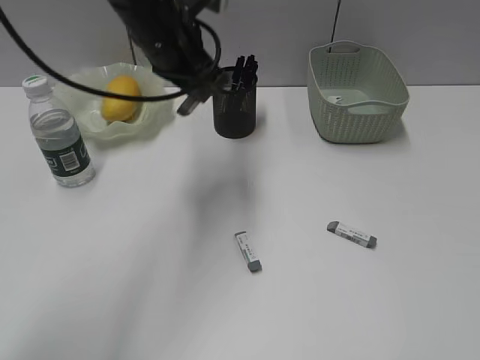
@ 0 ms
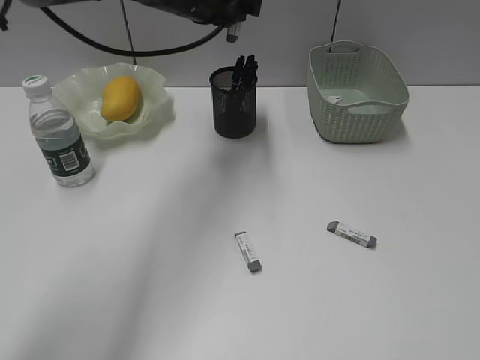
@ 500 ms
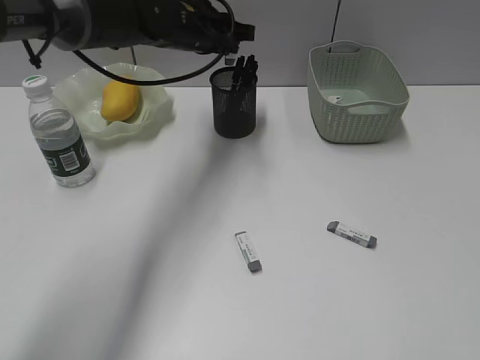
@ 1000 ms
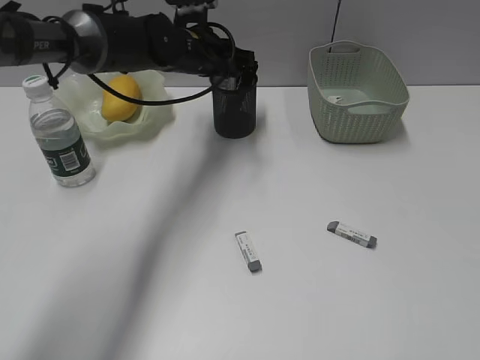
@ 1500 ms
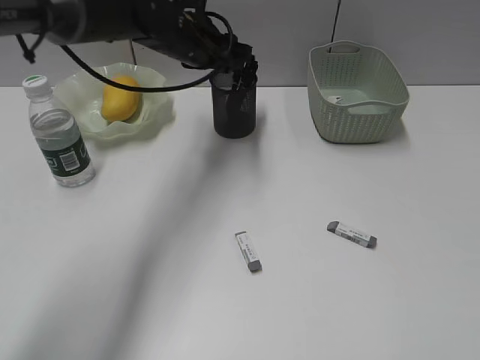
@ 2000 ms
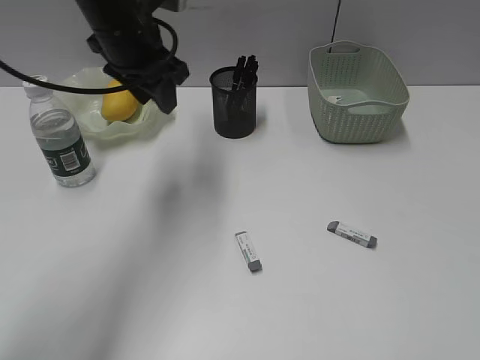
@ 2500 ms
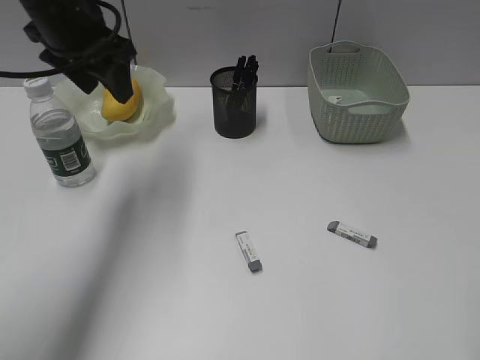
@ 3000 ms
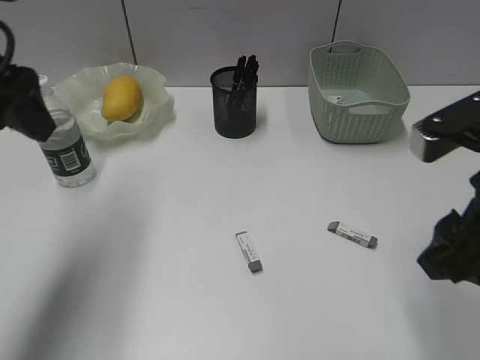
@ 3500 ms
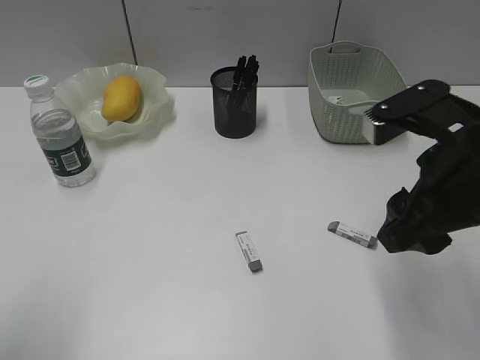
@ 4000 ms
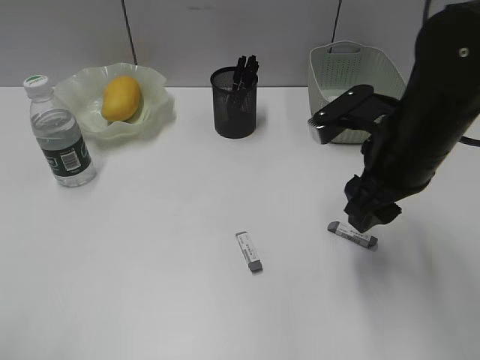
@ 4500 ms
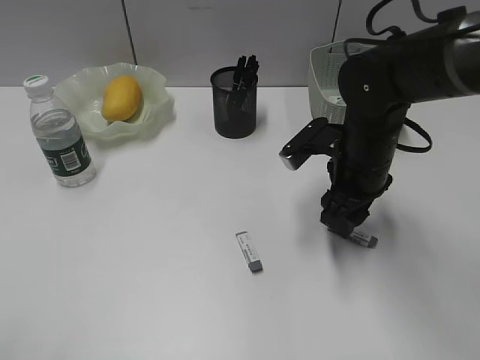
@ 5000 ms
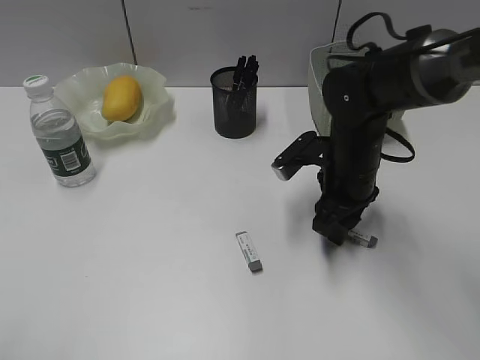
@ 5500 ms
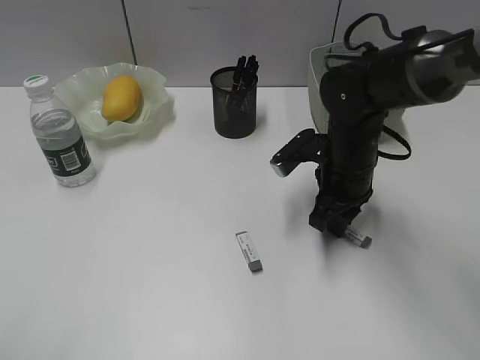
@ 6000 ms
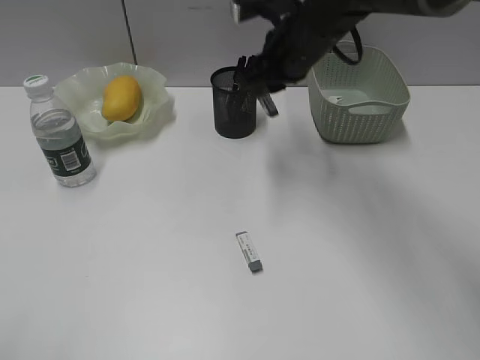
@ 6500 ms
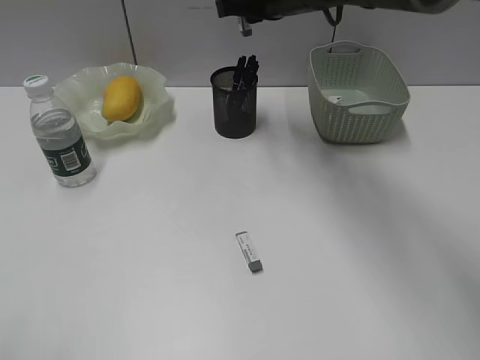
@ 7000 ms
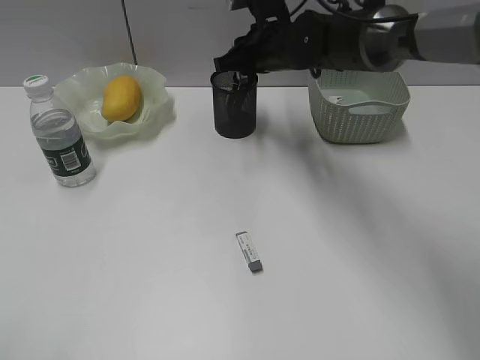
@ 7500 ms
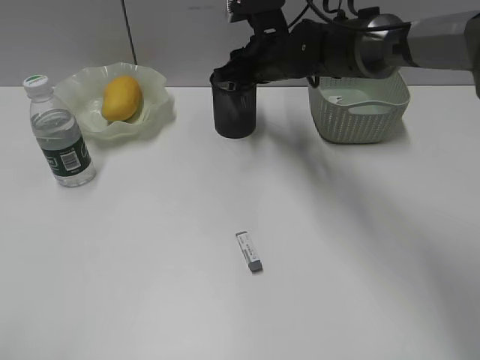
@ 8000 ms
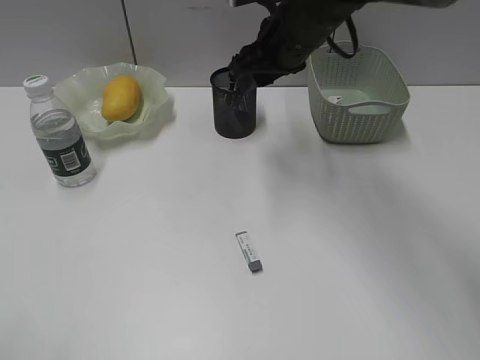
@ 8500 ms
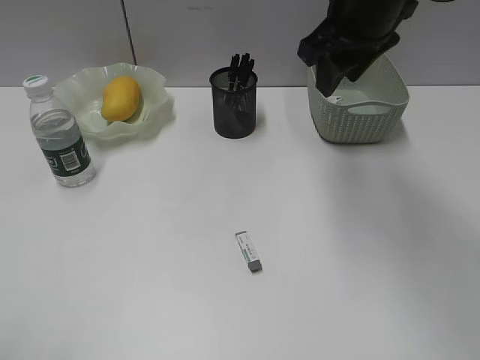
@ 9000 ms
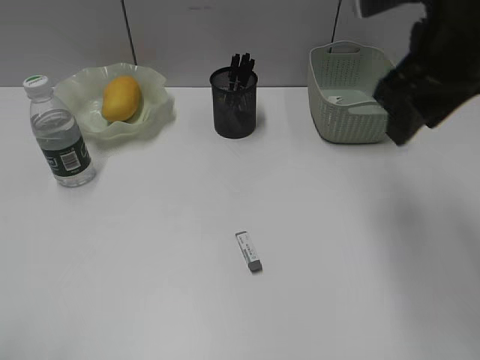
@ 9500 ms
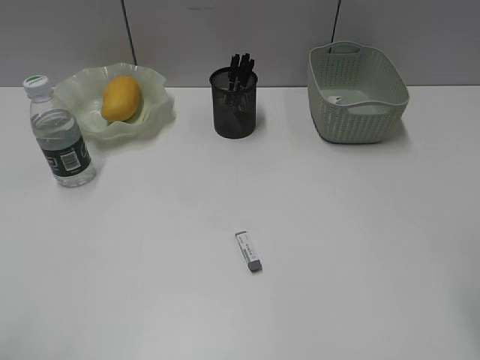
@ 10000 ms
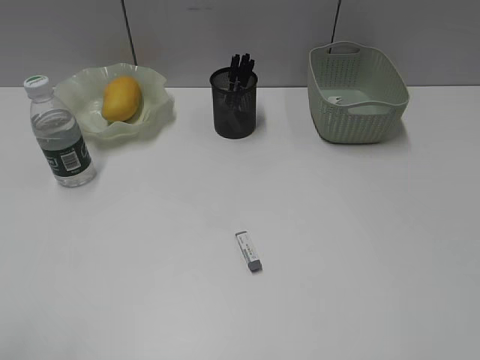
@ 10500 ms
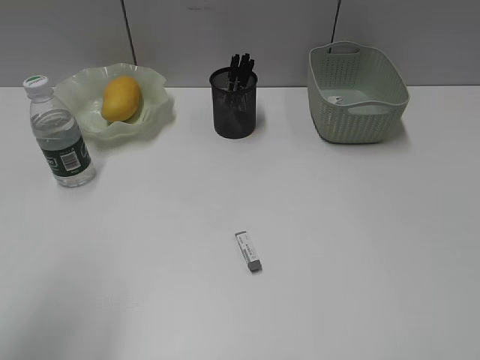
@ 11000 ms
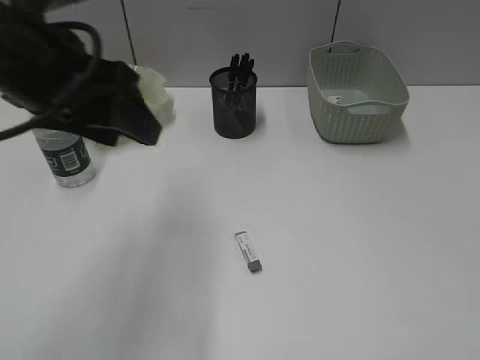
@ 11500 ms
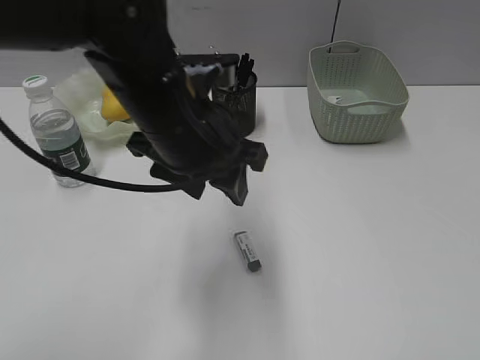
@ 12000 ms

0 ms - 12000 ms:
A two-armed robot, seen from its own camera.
Step, 0 ms - 2000 ms: Place the eraser in pen holder with left gripper.
Step, 2500 ms - 5500 ms: Grasp the eraser with right gripper.
Step, 6000 ms - 8000 ms: Place the eraser in pen holder with right gripper.
0 ms - 2000 ms: The left gripper moves forward, about 5 cm, and opens up.
2000 ms - 4000 ms: The left gripper goes roughly 40 cm backward and to the left. Meanwhile the right gripper travels forward and to the left by approximately 20 cm.
4000 ms - 6000 ms: The right gripper shifts roughly 20 cm forward, downward and to the left, and closes up. The left gripper goes approximately 10 cm backward.
6000 ms - 8000 ms: The right gripper shifts approximately 15 cm forward, to the left and upward.
8000 ms - 10000 ms: The right gripper moves backward, to the right and upward, some 40 cm, and opens.
10000 ms - 12000 ms: The right gripper goes approximately 15 cm backward and to the right; the left gripper heads forward and to the right, covering about 35 cm.

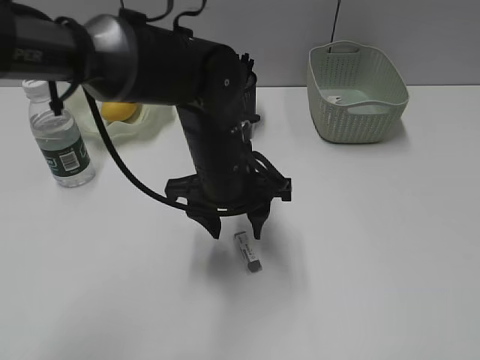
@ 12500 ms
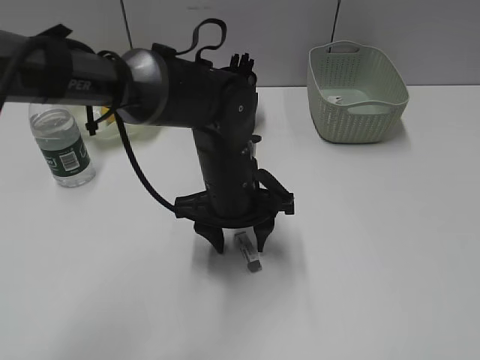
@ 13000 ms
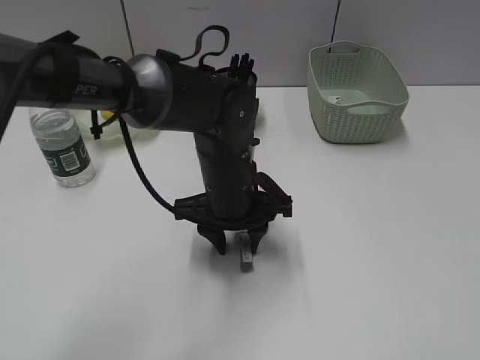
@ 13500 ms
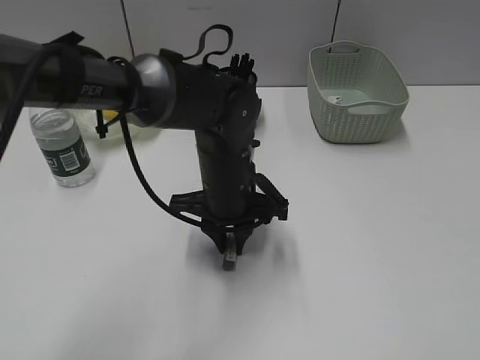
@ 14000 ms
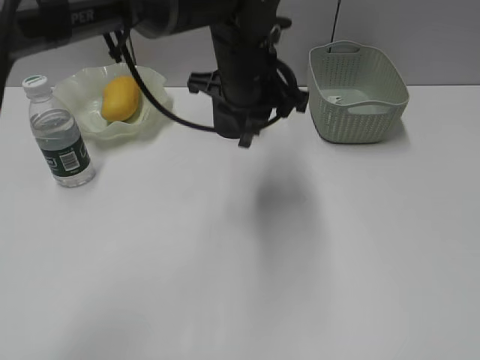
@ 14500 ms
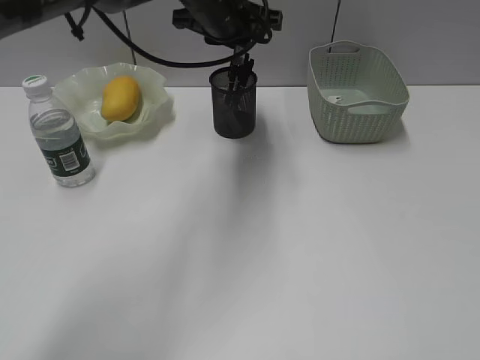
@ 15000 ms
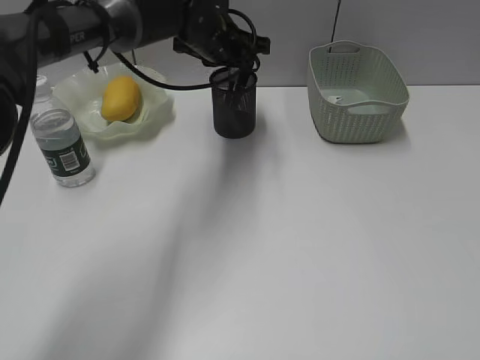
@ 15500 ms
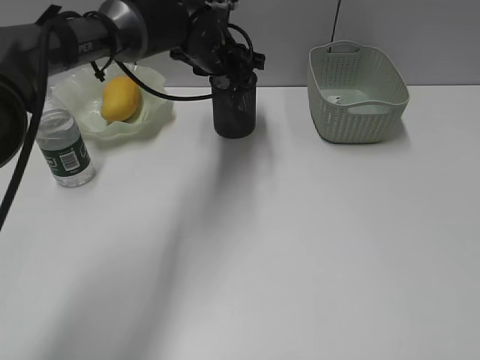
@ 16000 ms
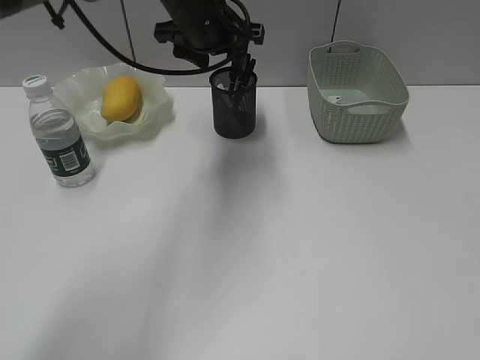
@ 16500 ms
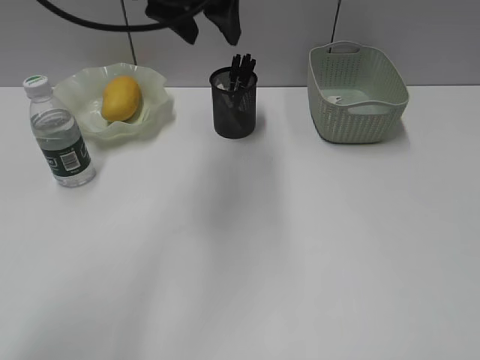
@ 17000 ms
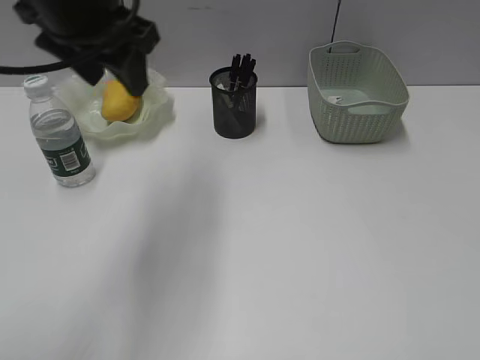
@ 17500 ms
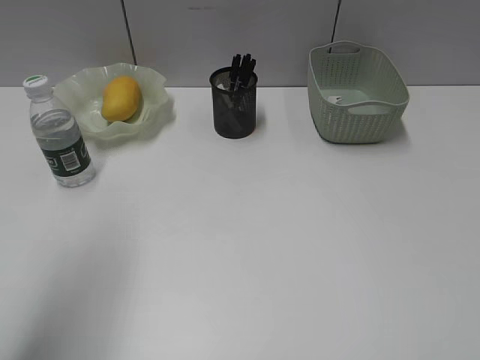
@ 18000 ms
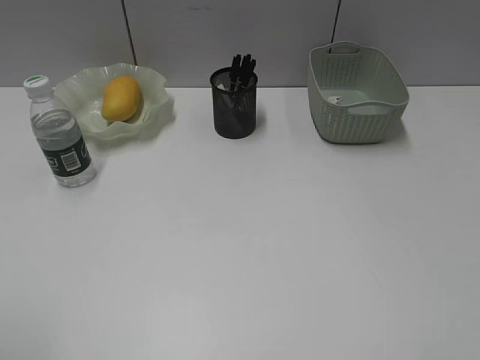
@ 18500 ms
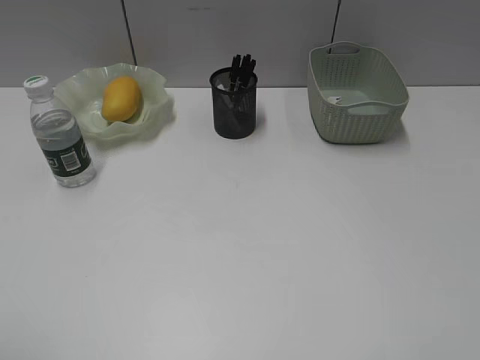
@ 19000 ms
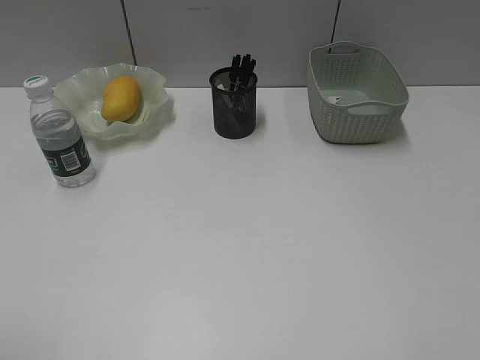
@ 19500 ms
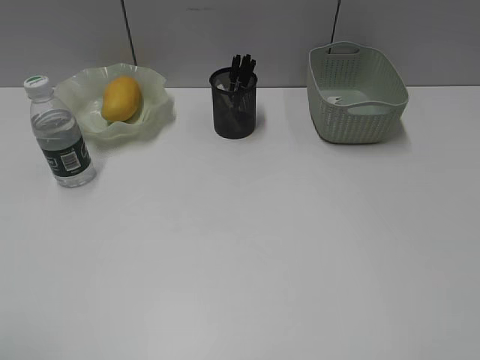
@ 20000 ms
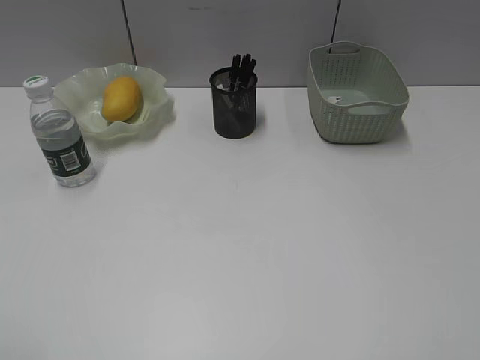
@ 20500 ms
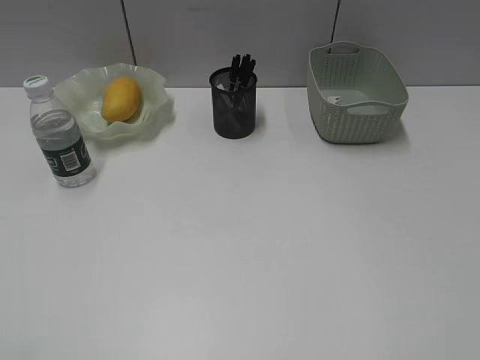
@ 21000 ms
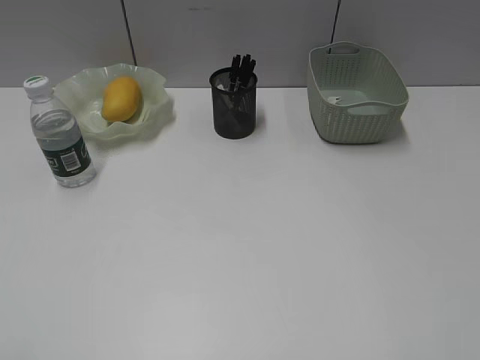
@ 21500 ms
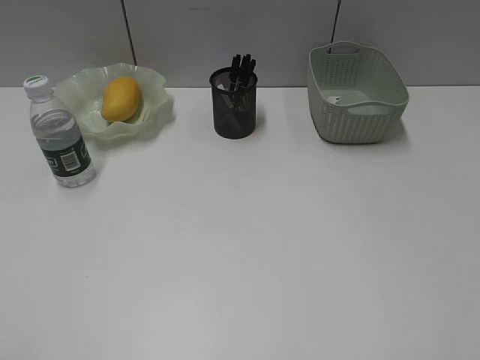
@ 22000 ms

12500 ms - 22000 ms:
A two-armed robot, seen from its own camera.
Step, 14000 ms - 16000 ms: Place the eraser in pen holder with left gripper.
12500 ms - 14500 ms: The left gripper is displaced forward and upward by roughly 10 cm, and closes its fingers.
14500 ms - 16500 ms: The left gripper is displaced forward and to the left by approximately 10 cm, and opens.
16500 ms - 18000 ms: The left gripper is displaced backward and to the left by roughly 30 cm.
18000 ms - 20000 ms: The left gripper is displaced backward by roughly 15 cm.

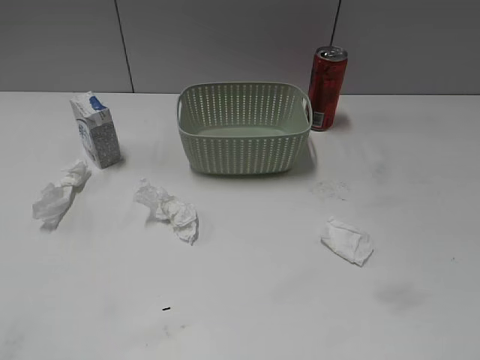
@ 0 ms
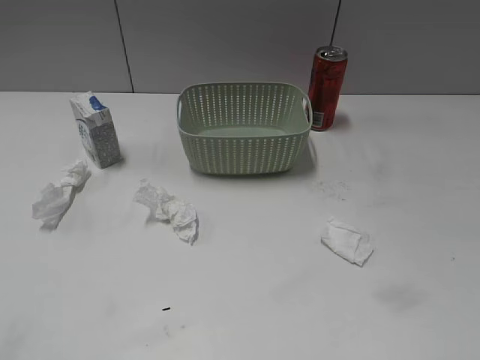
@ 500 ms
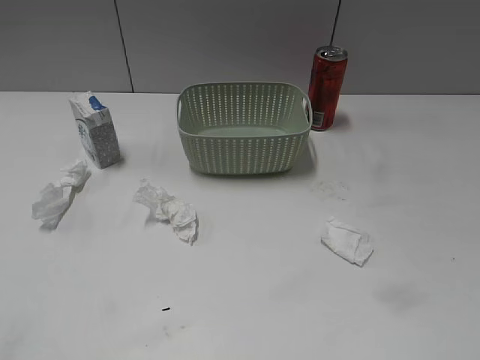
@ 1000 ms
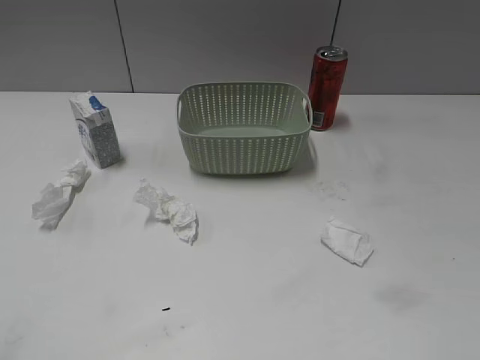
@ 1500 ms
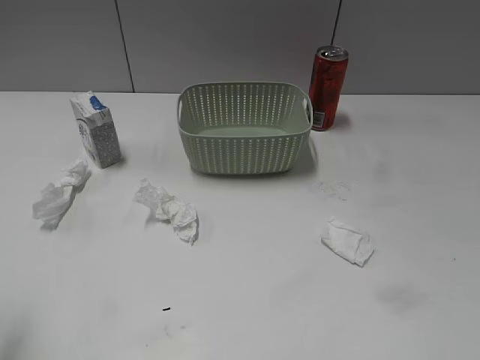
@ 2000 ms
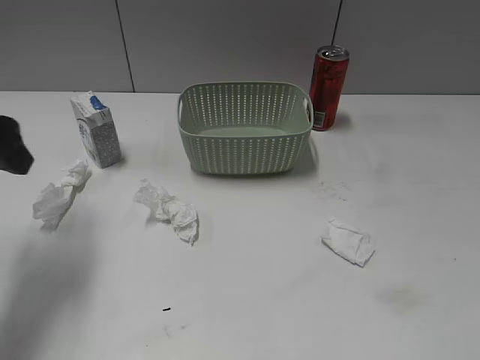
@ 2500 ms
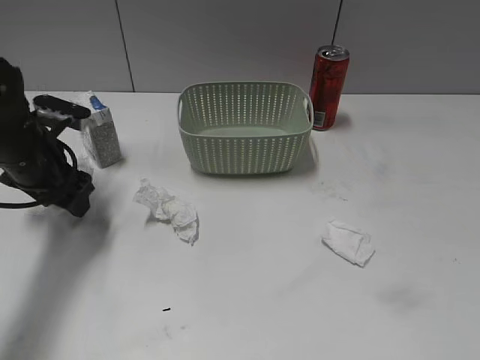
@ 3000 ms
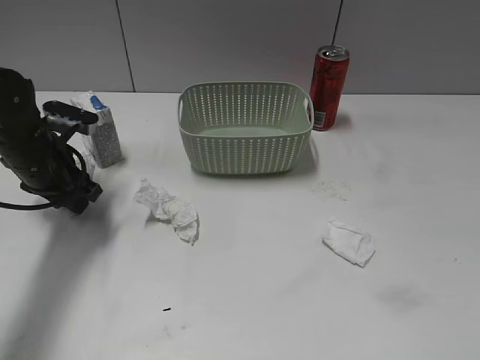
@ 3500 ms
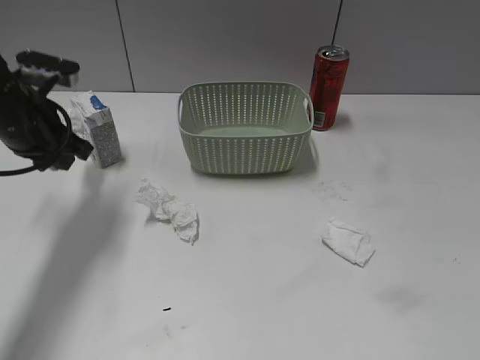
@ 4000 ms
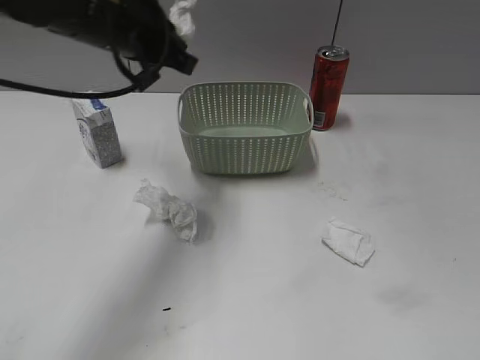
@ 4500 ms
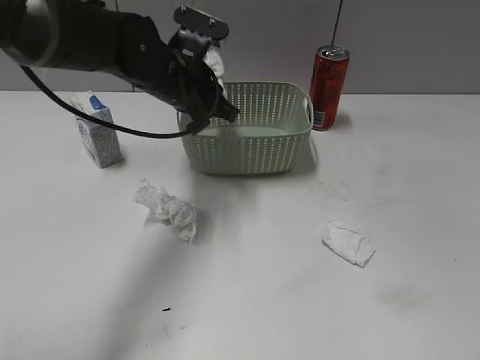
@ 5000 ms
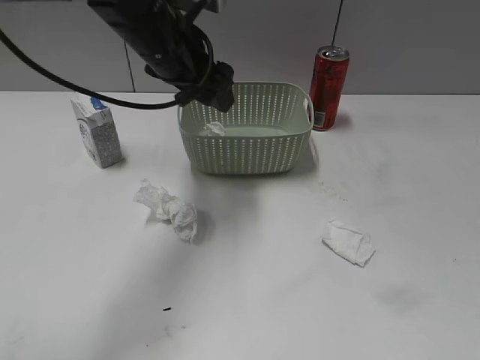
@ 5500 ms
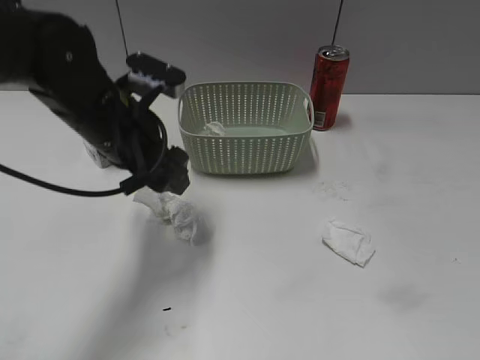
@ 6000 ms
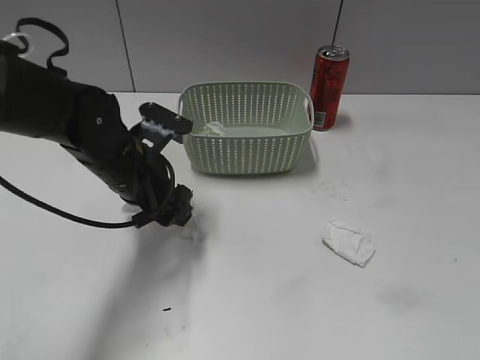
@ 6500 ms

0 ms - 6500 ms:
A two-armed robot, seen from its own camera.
Step, 2500 ms - 3500 ms: Grasp the waste paper with left gripper.
Step, 4000 ms - 5500 ms: Place the waste paper in the basket with left gripper.
2000 ms - 4500 ms: The left gripper goes some 30 cm forward and to the right, and closes up.
4500 ms - 6500 ms: The left gripper goes up and down, some 15 cm each way, reversing 2 times, and opens up.
